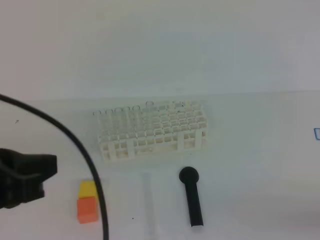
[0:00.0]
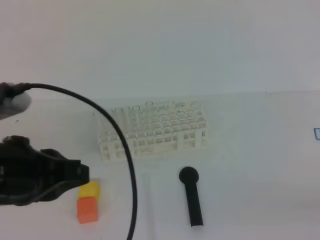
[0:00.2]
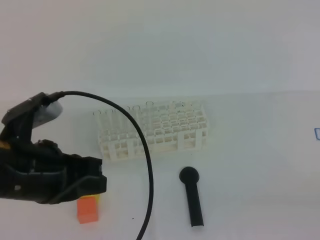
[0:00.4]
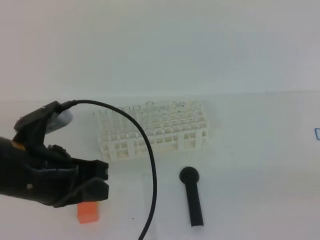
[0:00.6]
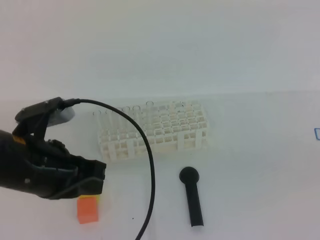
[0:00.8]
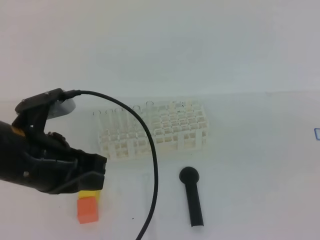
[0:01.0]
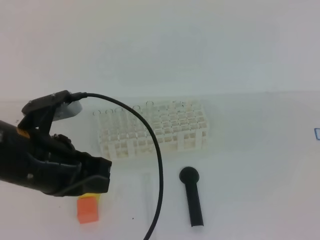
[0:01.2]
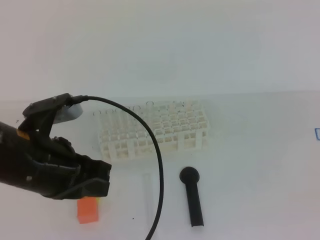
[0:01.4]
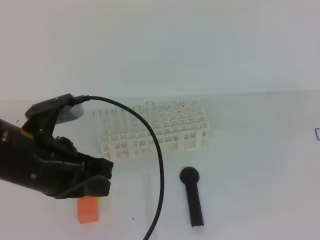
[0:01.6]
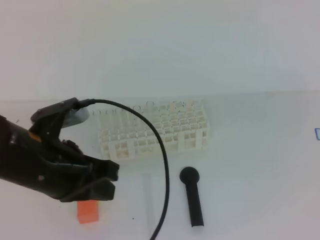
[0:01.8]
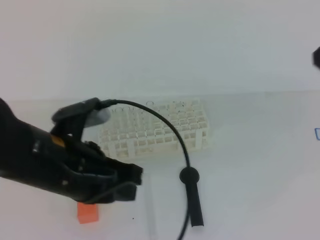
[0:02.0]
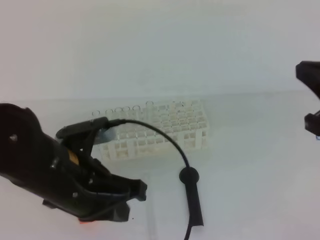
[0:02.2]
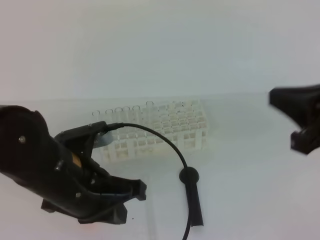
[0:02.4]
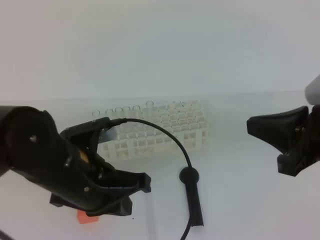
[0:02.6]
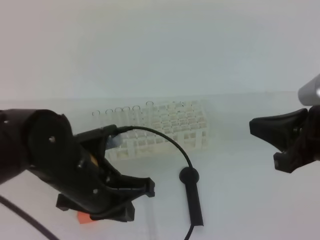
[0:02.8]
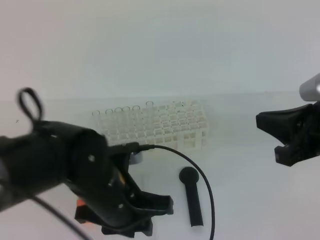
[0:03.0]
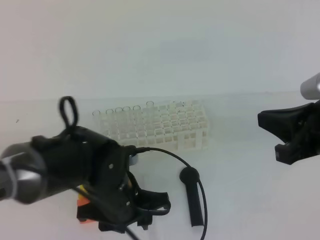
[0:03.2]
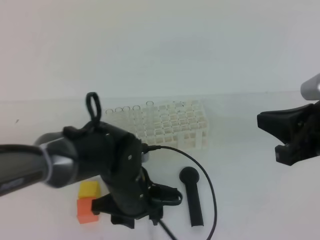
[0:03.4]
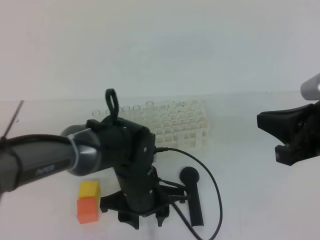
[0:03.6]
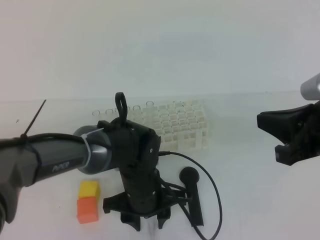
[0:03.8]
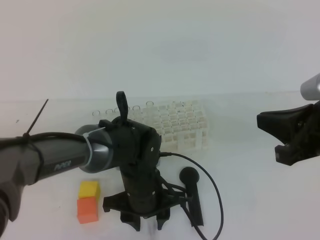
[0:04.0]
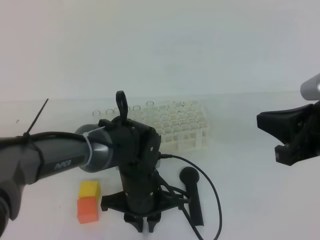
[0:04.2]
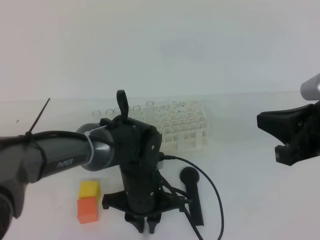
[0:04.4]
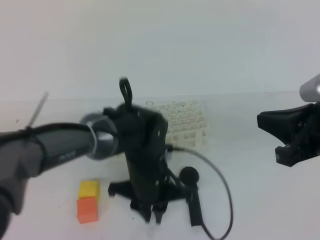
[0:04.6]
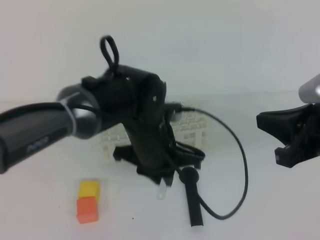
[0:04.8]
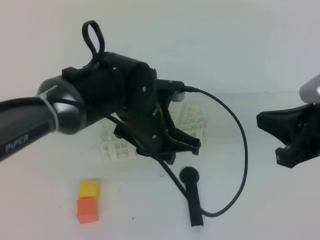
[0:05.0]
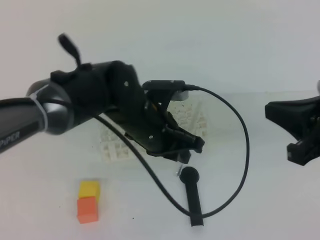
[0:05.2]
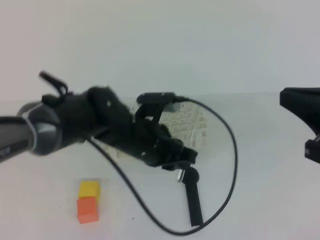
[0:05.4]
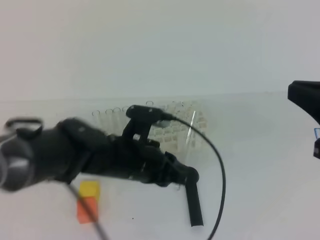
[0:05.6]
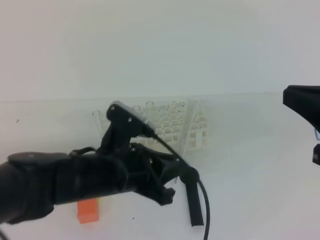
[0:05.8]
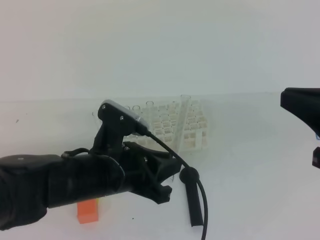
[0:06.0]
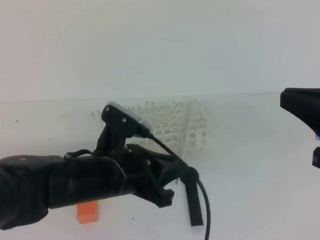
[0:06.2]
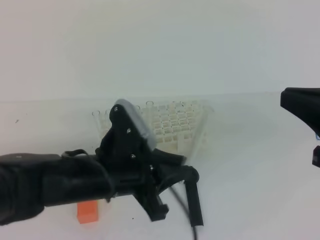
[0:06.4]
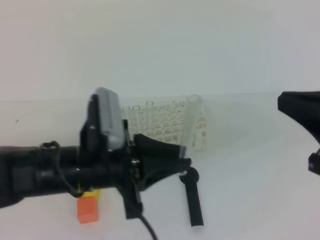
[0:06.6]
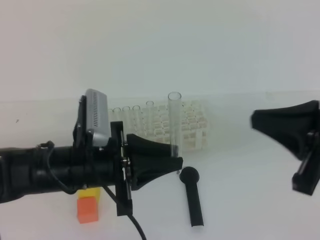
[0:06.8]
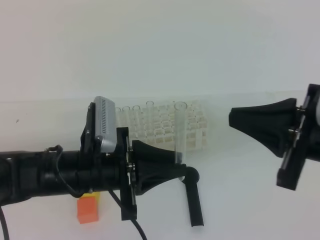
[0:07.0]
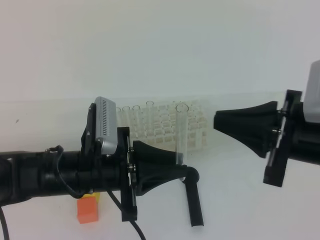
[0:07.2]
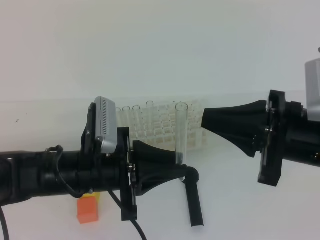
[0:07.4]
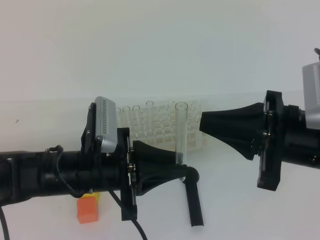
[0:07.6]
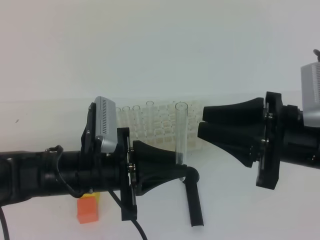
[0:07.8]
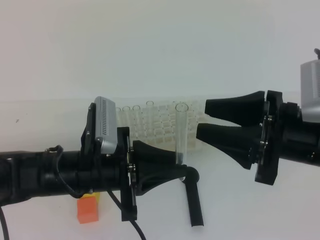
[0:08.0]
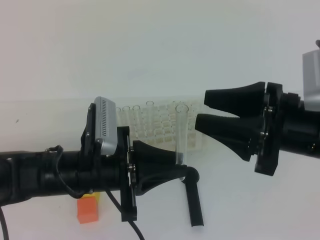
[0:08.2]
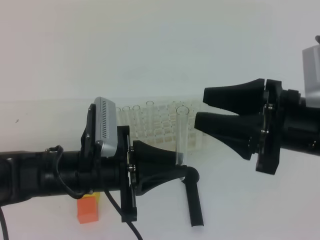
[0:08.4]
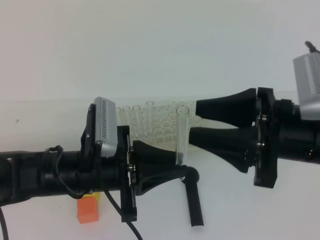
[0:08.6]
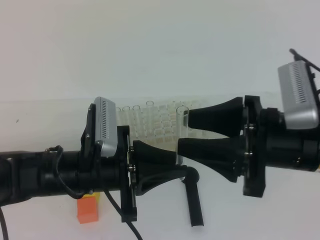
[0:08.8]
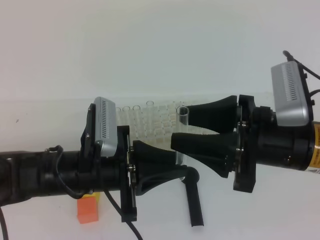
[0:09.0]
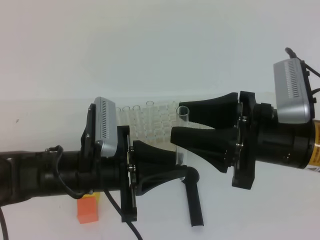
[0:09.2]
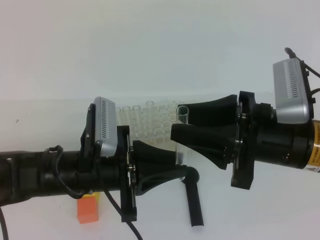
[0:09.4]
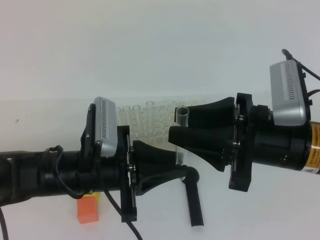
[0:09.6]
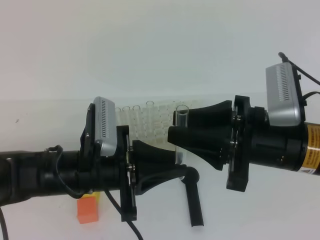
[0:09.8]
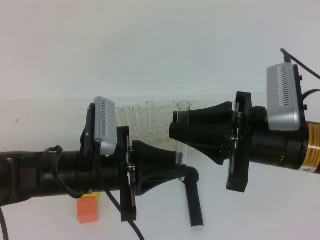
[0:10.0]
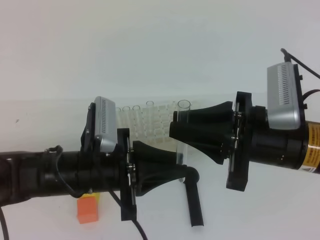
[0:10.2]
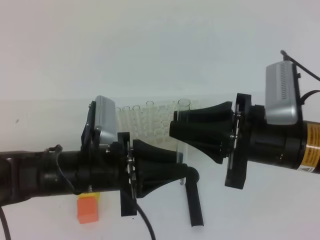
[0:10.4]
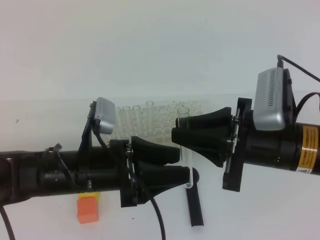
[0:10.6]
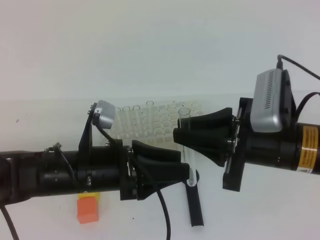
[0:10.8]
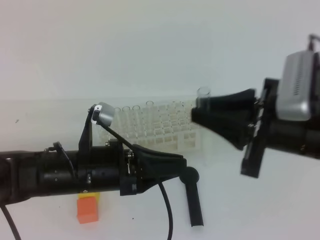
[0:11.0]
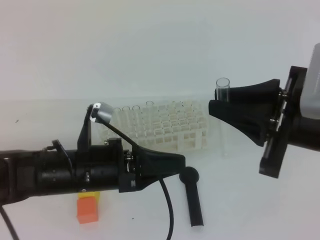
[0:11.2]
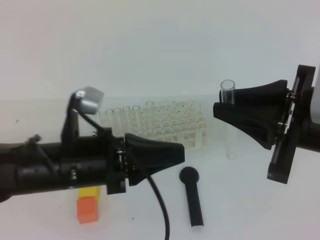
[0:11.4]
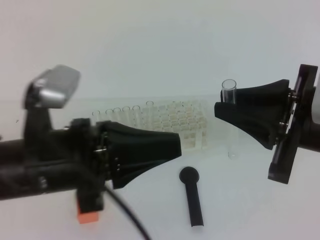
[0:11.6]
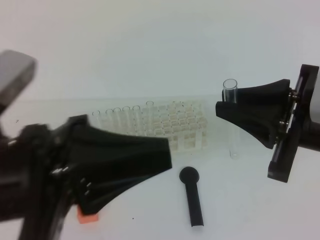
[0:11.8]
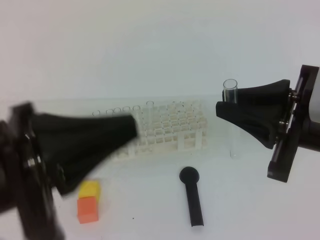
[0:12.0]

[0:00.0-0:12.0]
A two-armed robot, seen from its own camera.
0:00.0 to 0:01.6: The left gripper goes some 10 cm forward and downward; the right gripper heads upward and forward, covering some 20 cm.
0:01.6 to 0:03.0: The left gripper goes approximately 10 cm downward and to the right, and opens; the right gripper goes approximately 10 cm downward, forward and to the left.
0:03.0 to 0:04.4: The left gripper goes roughly 10 cm downward, forward and to the right, and closes its fingers.
0:04.4 to 0:06.0: The left gripper goes about 10 cm upward, backward and to the left. Meanwhile the right gripper changes place by some 5 cm.
0:06.0 to 0:07.6: The right gripper is displaced to the left and downward by about 5 cm.
0:07.6 to 0:09.0: The right gripper opens up.
0:09.0 to 0:10.4: The left gripper opens its fingers, while the right gripper closes its fingers.
0:10.4 to 0:12.0: The left gripper is displaced upward and backward by approximately 15 cm, and closes up. Meanwhile the right gripper shifts by approximately 5 cm.

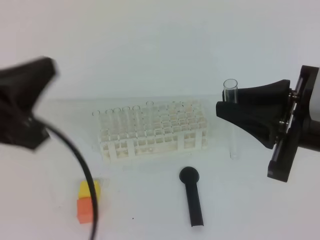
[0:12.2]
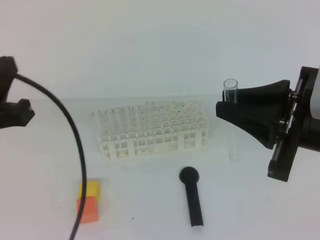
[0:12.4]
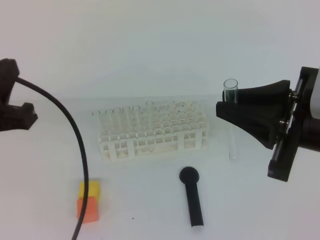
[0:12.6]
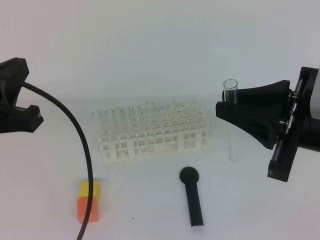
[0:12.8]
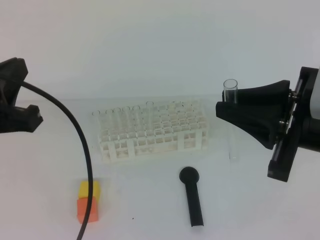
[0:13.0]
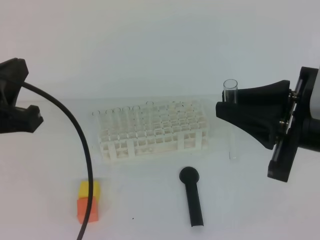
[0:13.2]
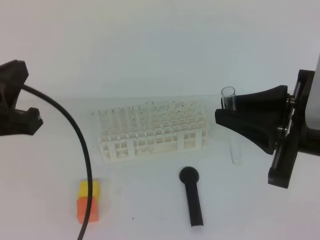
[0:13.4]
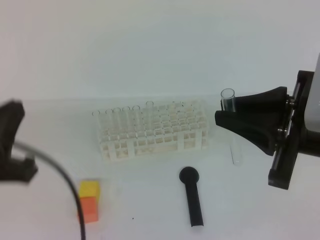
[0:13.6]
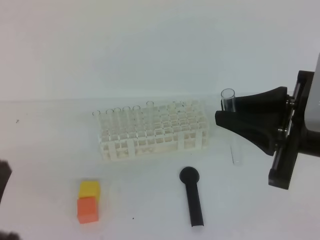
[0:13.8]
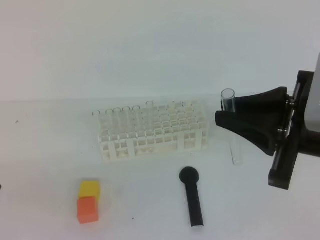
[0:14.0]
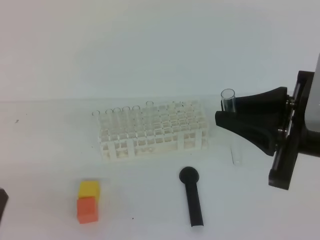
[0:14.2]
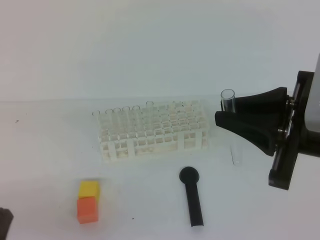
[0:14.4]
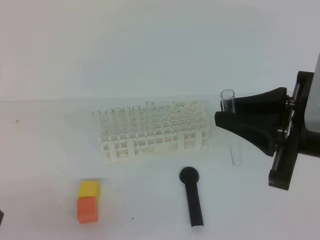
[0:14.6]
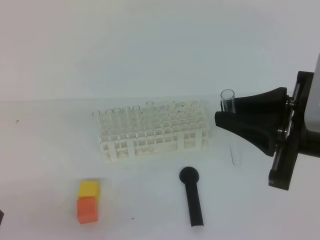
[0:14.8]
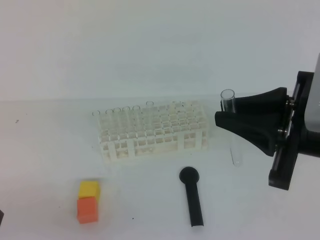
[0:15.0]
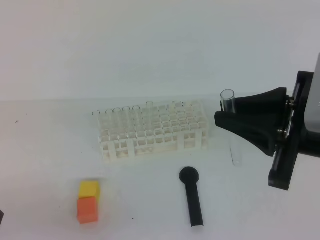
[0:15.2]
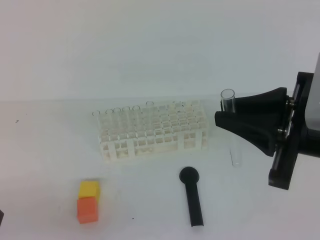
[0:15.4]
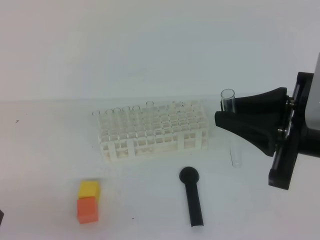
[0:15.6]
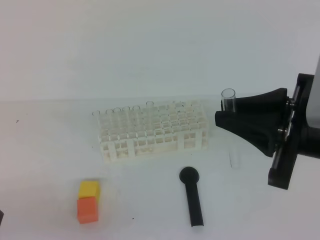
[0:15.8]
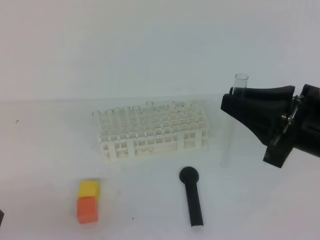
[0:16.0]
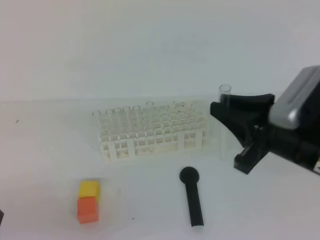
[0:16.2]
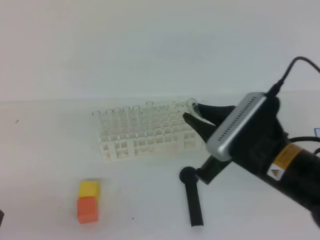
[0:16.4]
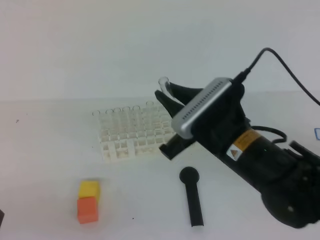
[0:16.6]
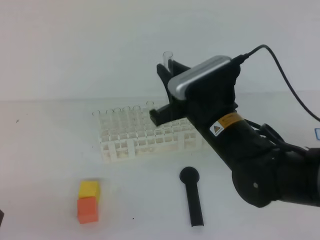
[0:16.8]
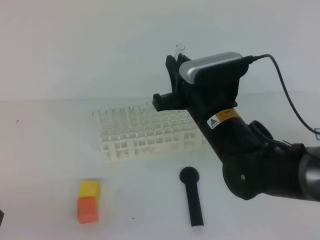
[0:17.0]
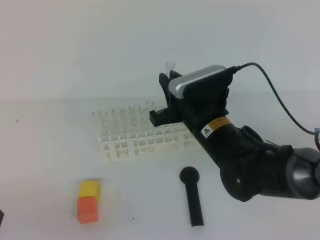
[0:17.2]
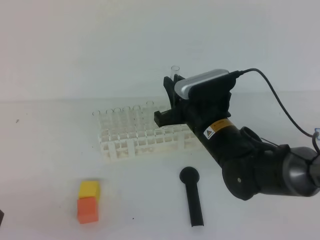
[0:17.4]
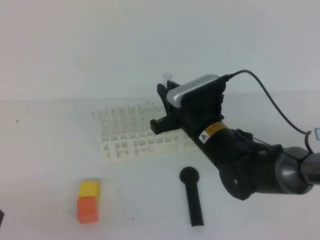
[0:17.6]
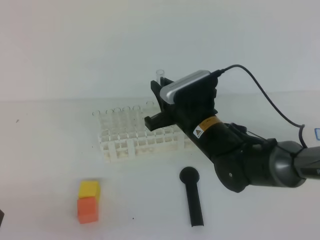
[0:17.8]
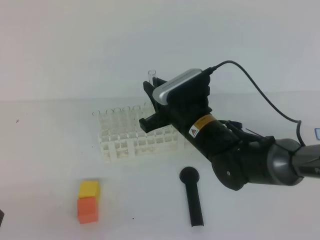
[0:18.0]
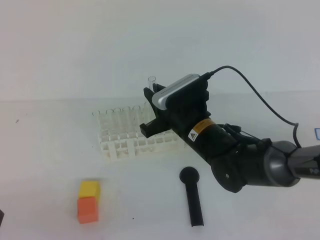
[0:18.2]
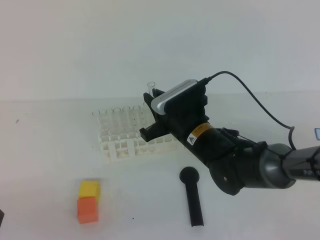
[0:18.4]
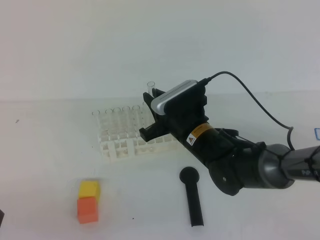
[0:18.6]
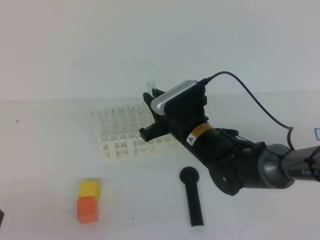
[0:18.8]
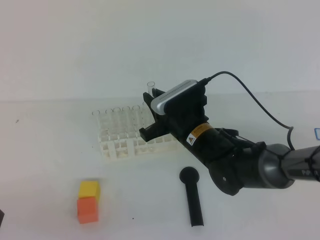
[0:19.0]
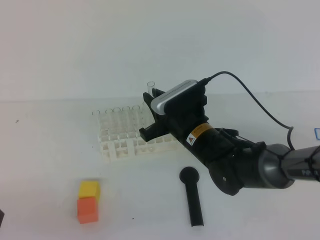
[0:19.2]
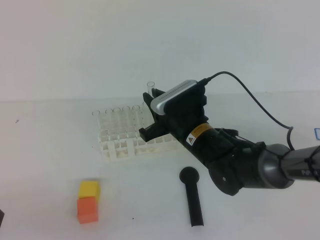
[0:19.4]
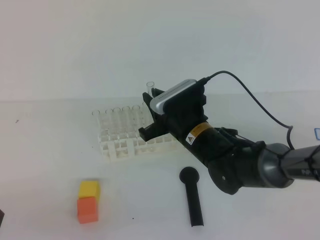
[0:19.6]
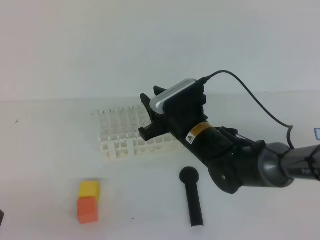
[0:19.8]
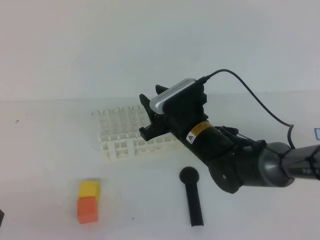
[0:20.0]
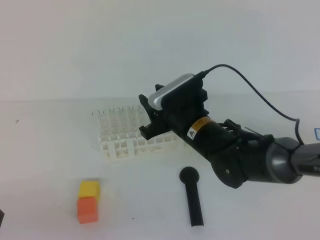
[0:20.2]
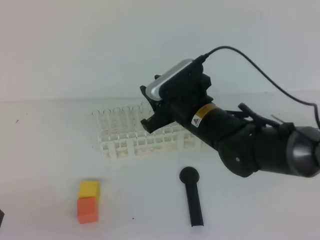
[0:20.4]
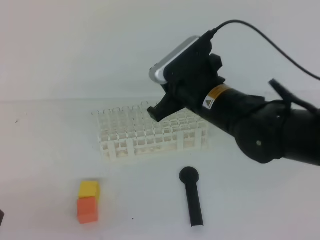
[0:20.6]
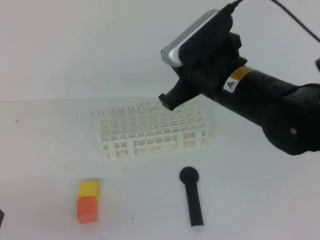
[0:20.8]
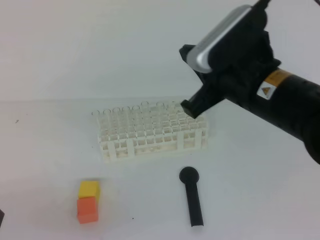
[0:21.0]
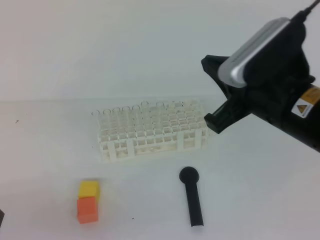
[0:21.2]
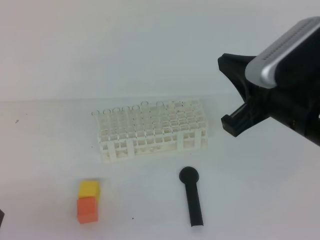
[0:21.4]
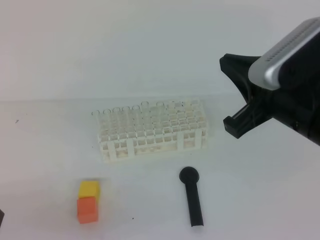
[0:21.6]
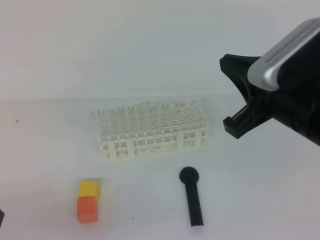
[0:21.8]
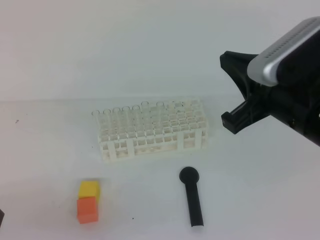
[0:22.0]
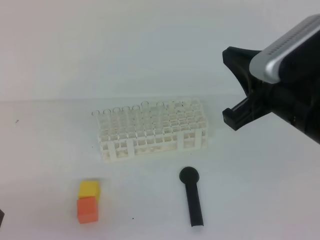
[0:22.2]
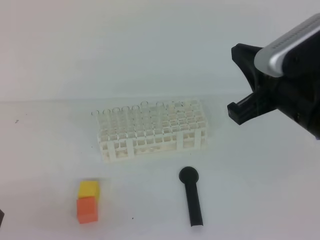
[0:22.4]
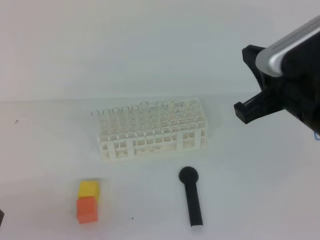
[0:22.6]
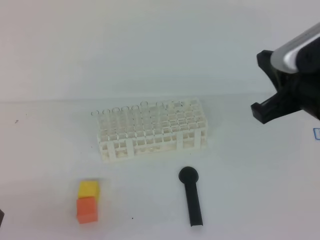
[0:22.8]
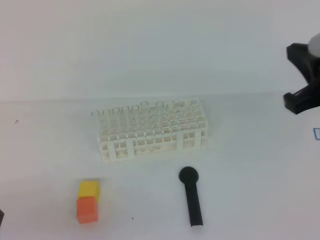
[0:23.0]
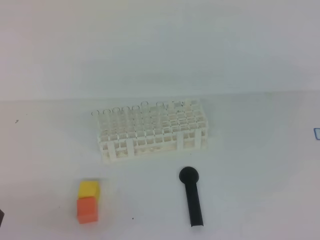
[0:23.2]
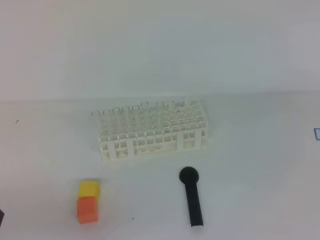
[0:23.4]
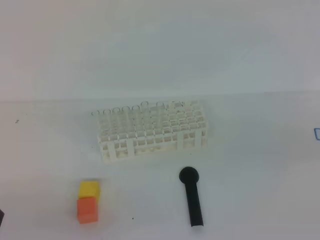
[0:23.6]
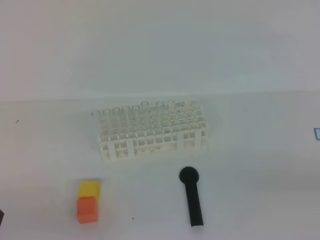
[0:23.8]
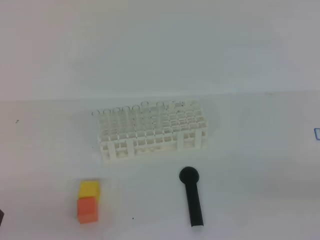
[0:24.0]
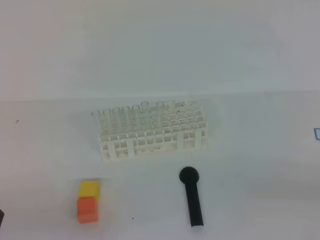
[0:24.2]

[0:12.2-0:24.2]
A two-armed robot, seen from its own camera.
0:12.2 to 0:13.8: The left gripper goes about 10 cm downward and backward.
0:13.8 to 0:15.2: The left gripper shifts approximately 10 cm downward.
0:15.2 to 0:16.6: The right gripper moves to the left, downward and forward, roughly 10 cm.
0:16.6 to 0:18.2: The right gripper shifts some 15 cm forward, downward and to the left.
0:18.2 to 0:19.8: The grippers move only a little.
0:19.8 to 0:21.2: The right gripper travels upward, backward and to the right by about 20 cm, and closes its fingers.
0:21.2 to 0:22.6: The grippers move only a little.
0:22.6 to 0:24.2: The right gripper heads to the right, backward and downward, covering some 25 cm.
